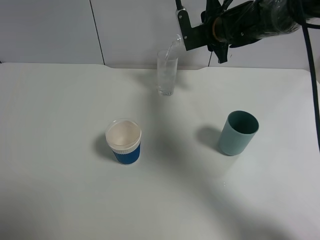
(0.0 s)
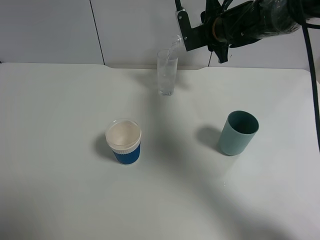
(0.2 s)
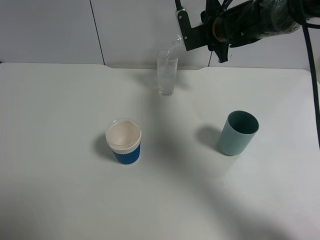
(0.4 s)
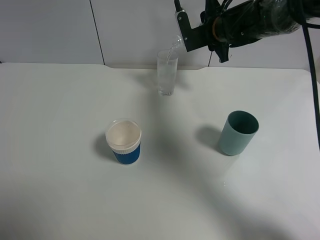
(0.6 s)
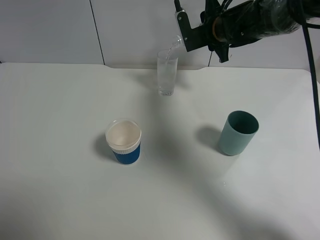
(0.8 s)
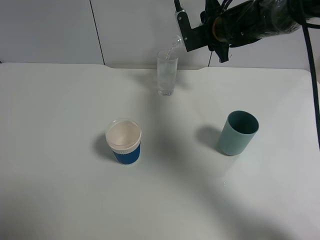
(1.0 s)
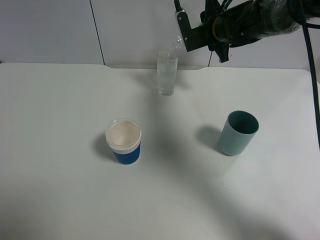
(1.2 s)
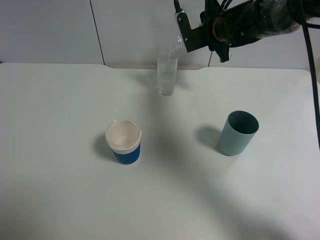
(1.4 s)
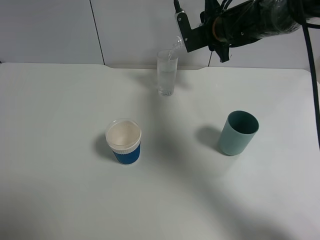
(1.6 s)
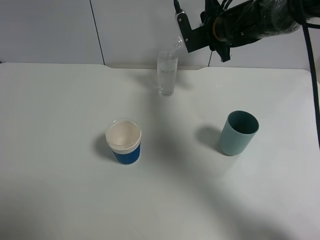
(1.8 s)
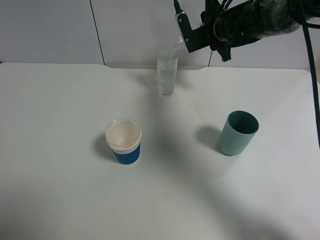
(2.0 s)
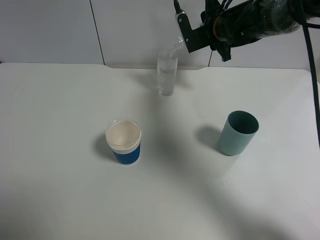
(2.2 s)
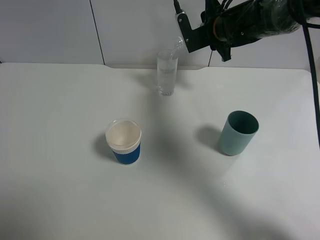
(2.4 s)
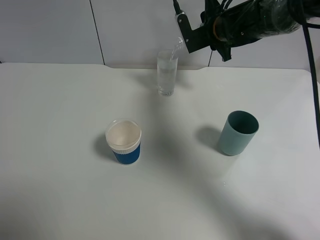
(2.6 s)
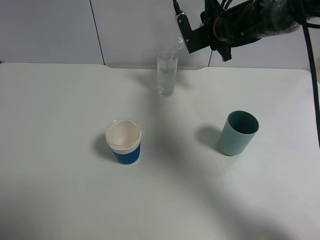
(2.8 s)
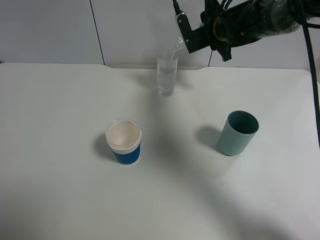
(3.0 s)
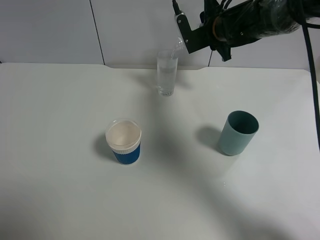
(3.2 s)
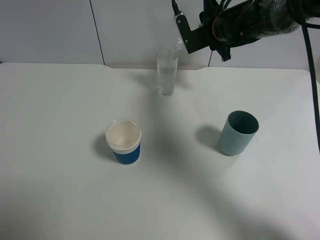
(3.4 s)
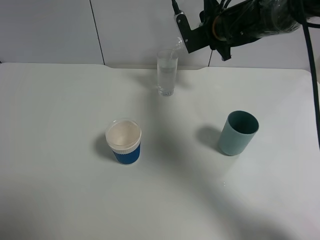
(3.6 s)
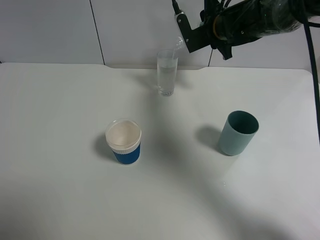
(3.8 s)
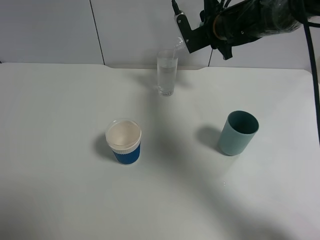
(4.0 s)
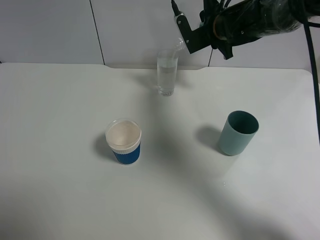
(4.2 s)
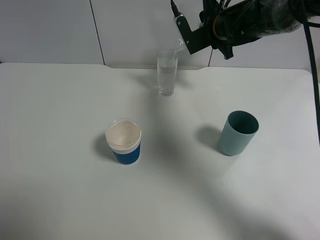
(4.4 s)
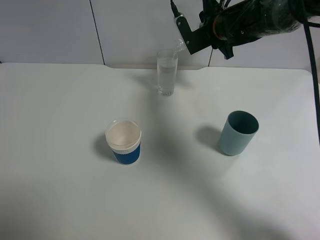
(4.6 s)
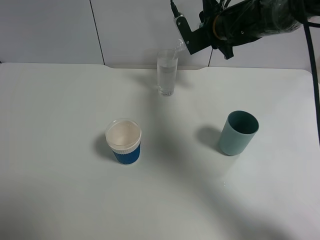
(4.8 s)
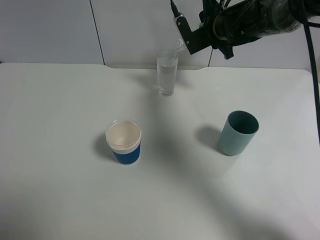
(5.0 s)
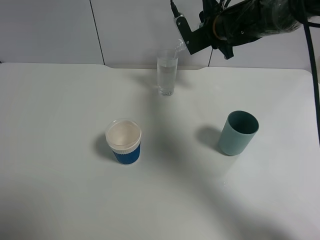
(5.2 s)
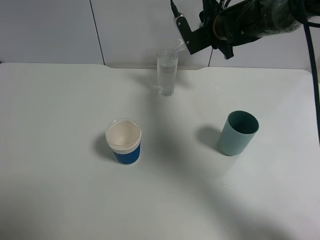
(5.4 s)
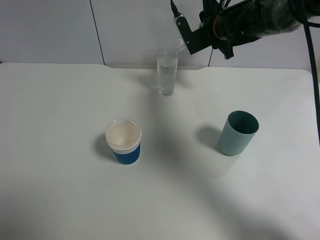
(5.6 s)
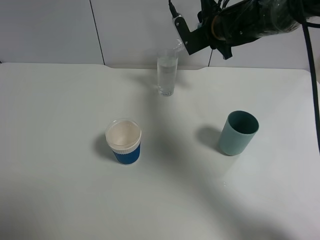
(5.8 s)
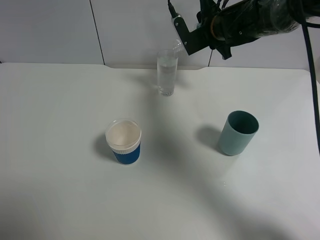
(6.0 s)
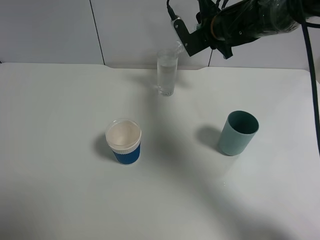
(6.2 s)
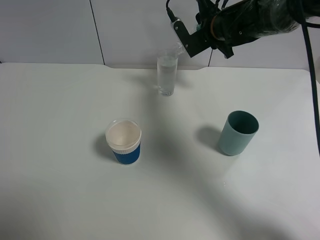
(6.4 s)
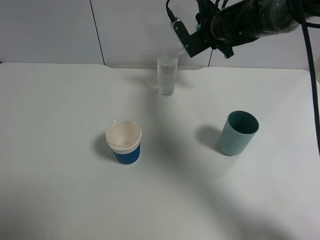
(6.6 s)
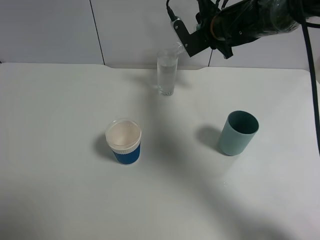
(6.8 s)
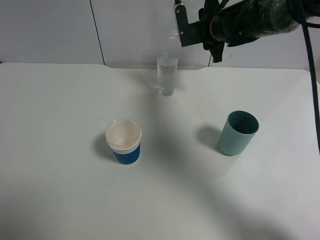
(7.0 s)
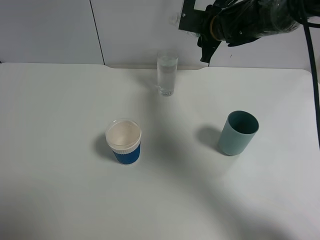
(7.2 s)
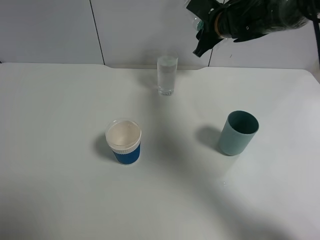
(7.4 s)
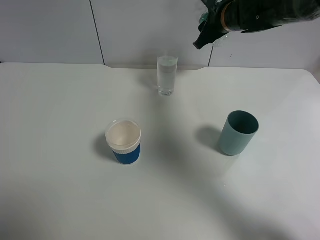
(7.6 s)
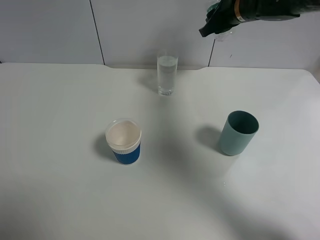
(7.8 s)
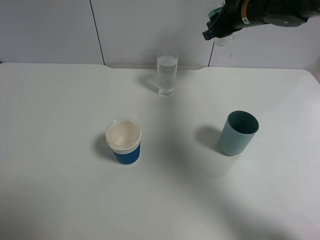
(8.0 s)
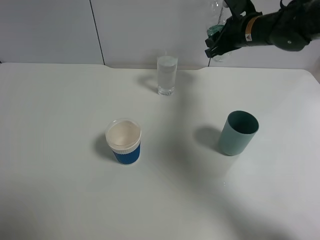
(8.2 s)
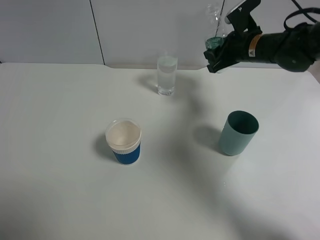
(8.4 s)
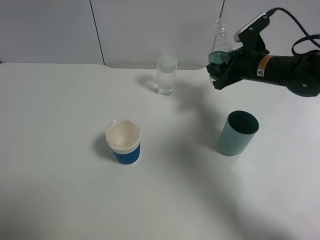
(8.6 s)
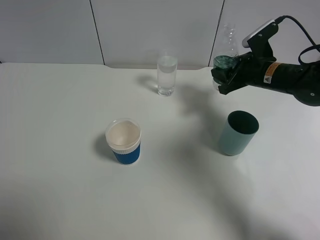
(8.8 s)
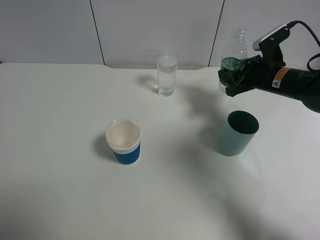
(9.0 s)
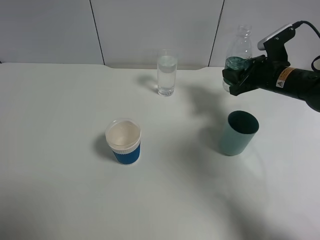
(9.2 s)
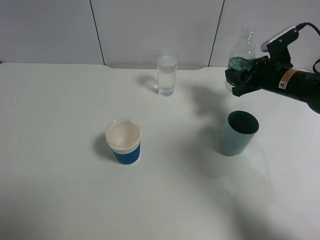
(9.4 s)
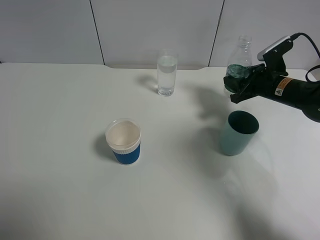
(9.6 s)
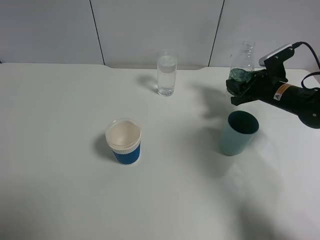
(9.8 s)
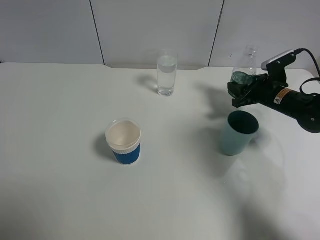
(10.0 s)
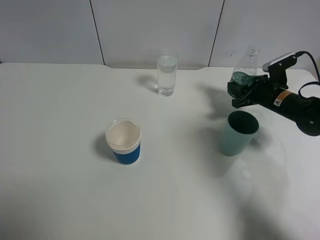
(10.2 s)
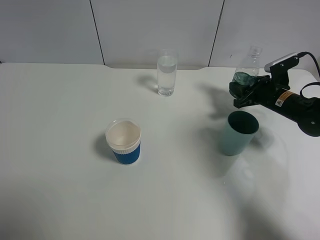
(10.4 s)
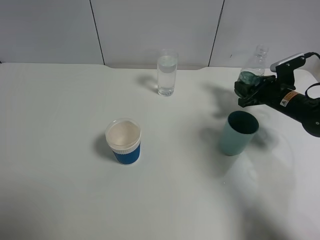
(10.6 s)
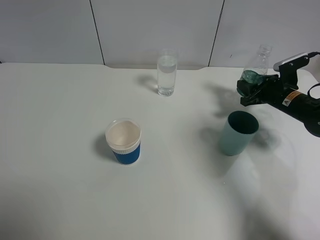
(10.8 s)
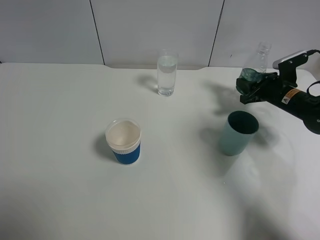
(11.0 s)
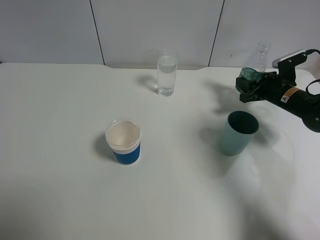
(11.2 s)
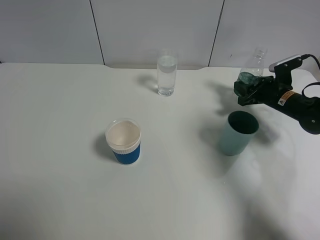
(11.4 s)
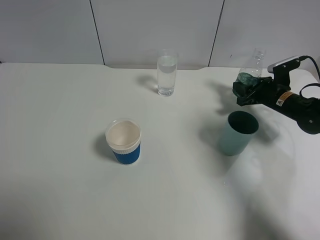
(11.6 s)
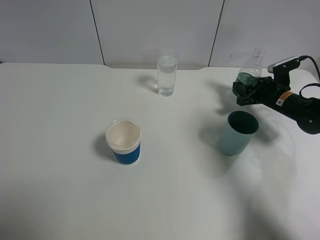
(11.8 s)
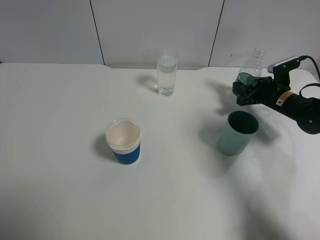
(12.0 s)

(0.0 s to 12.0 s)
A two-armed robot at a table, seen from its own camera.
Task of the whole recording: use a gripper to hold the bottle of the drink and pour it into a random cup.
Step, 0.0 s - 7.0 s: Pour the mineral water into the glass with the right gripper.
0.0 s - 1.6 s: The two grippers keep their place.
1.6 s - 3.0 s: Neither gripper changes place.
3.0 s - 4.4 s: Both grippers stay about where they are.
4.4 s - 6.0 s: Neither gripper changes place.
7.6 s - 9.0 s: The right gripper shifts about 15 cm to the right, downward and backward.
9.0 s - 10.4 s: The right gripper moves downward, some 5 cm.
10.4 s - 12.0 s: There are only small adjustments of the grippers.

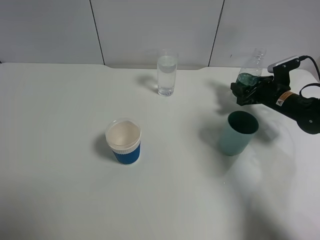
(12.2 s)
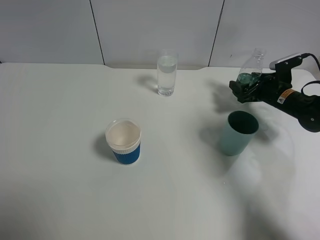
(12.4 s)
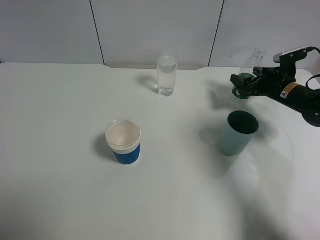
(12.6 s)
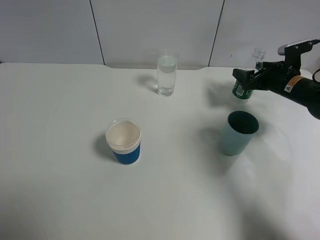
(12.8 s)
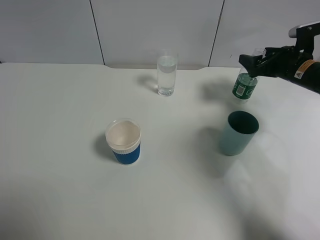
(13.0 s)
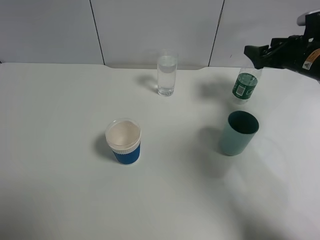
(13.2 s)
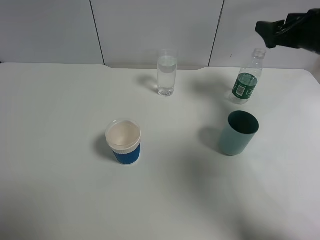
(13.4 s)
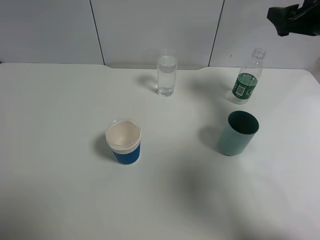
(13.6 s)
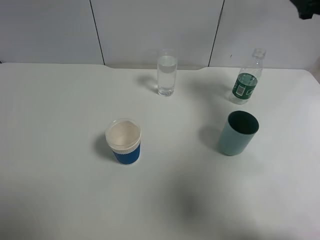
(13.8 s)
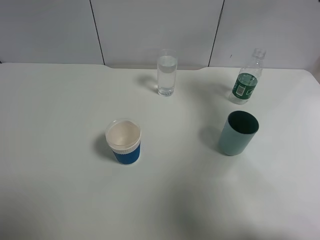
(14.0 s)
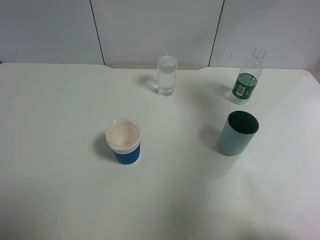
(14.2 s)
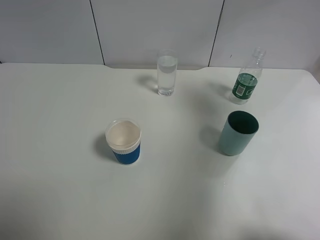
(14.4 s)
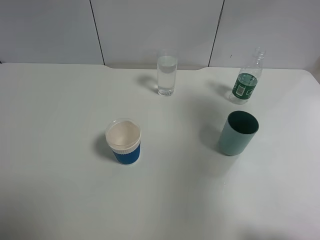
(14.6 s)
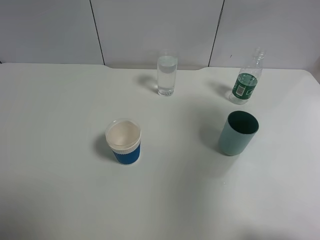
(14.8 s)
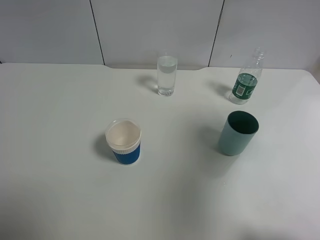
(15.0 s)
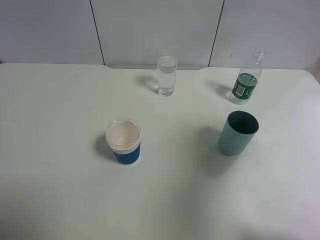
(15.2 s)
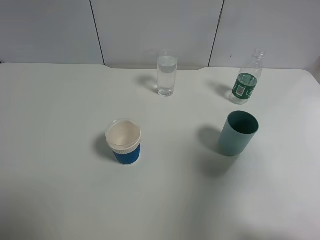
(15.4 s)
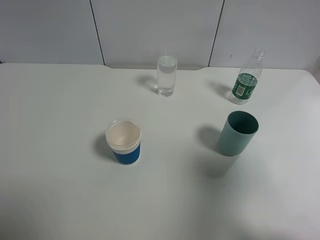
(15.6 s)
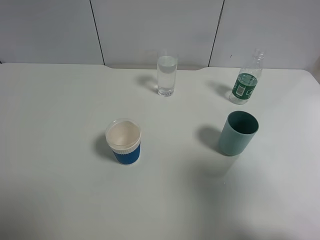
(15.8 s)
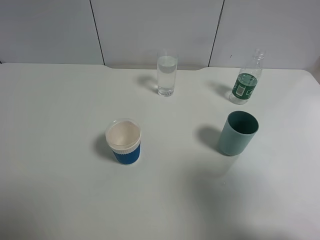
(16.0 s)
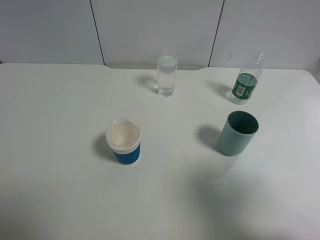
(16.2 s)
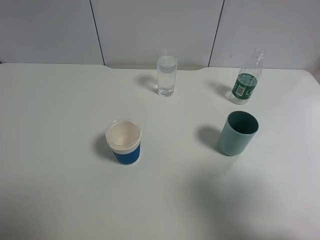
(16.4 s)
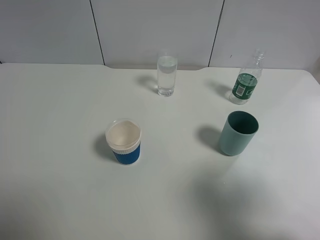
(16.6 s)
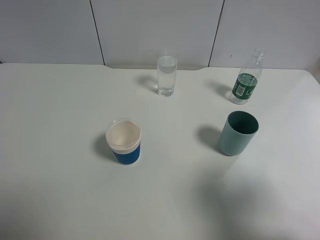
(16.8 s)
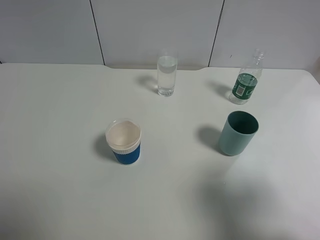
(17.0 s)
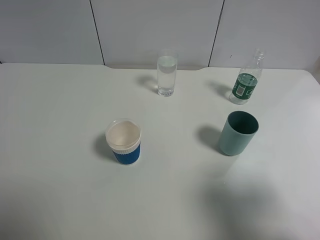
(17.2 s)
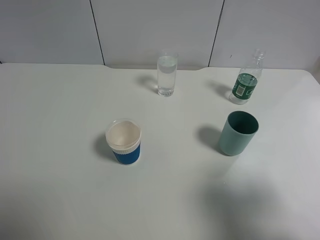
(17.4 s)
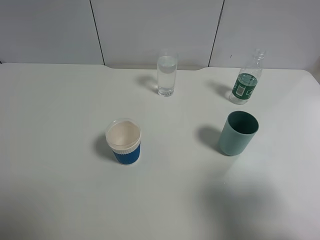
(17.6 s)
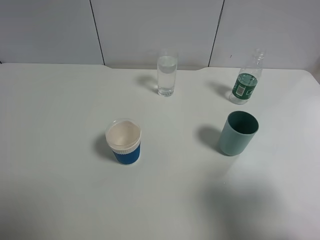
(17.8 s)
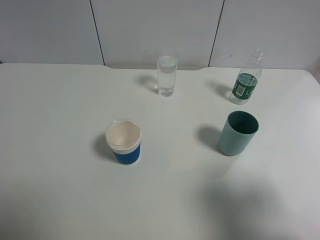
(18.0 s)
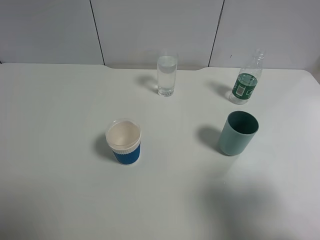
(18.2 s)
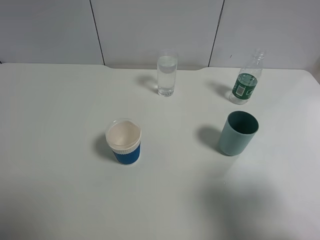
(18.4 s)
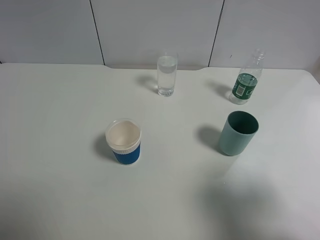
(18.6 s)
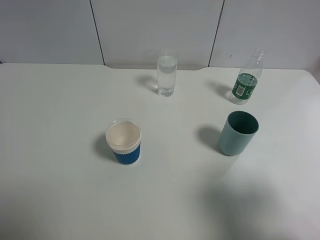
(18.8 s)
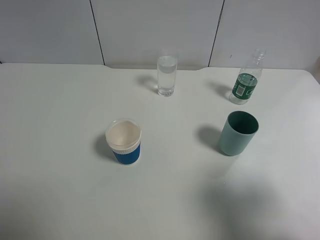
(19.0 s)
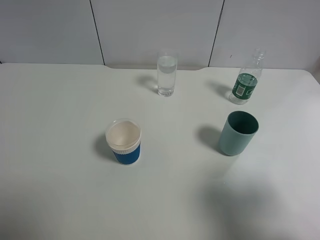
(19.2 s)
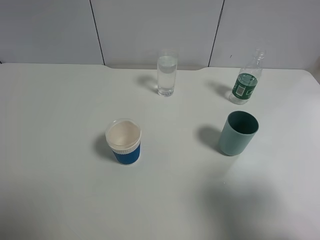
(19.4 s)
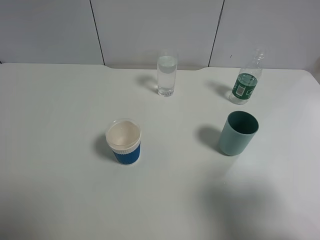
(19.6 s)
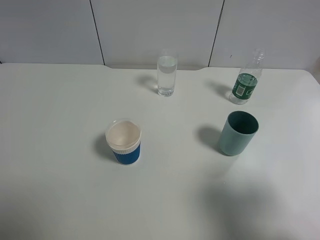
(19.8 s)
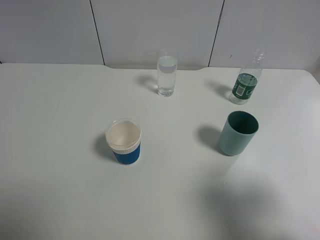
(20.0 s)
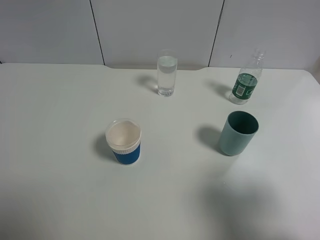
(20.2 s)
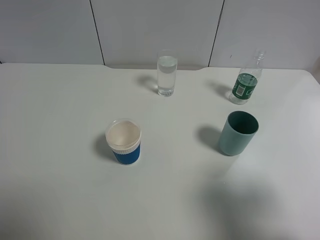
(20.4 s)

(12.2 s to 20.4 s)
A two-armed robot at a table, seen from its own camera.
Task of the whole recording: use a gripper to hold the bottle of the drink and pour it into a random cup.
12.2 s - 13.8 s: The right gripper heads upward, covering some 25 cm.
13.8 s - 15.4 s: The right gripper is displaced backward by about 25 cm.
15.4 s - 17.2 s: The right gripper moves downward and backward, some 10 cm.
17.2 s - 20.4 s: The two grippers keep their place.
